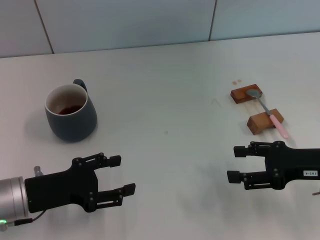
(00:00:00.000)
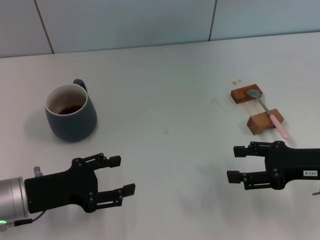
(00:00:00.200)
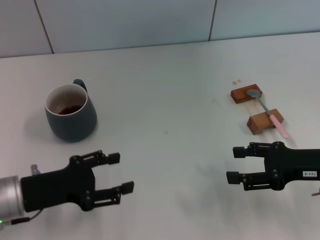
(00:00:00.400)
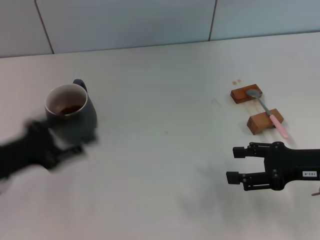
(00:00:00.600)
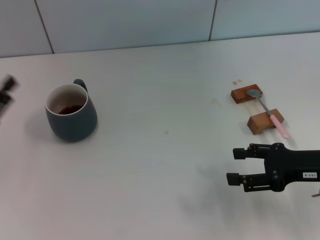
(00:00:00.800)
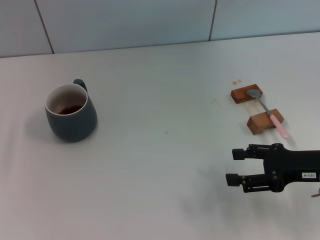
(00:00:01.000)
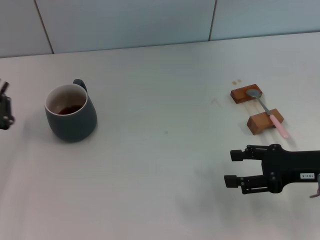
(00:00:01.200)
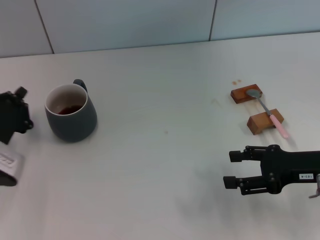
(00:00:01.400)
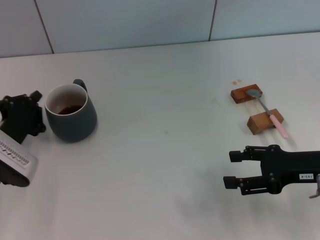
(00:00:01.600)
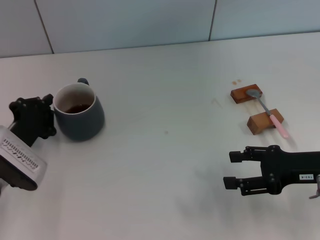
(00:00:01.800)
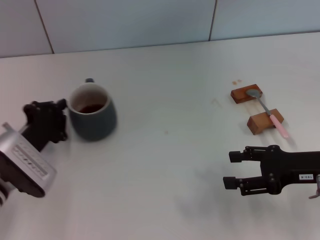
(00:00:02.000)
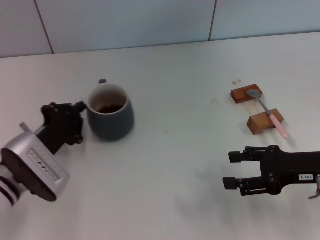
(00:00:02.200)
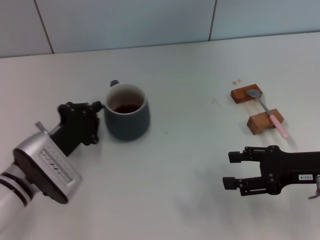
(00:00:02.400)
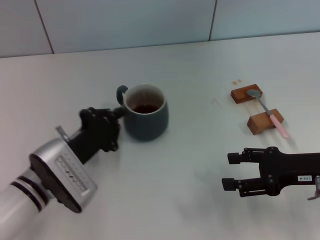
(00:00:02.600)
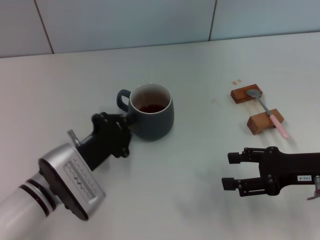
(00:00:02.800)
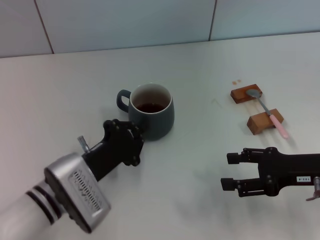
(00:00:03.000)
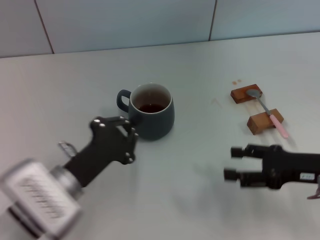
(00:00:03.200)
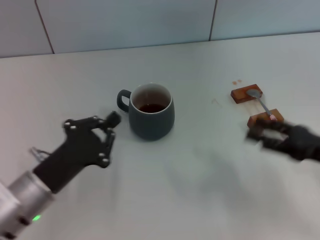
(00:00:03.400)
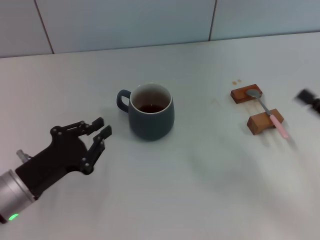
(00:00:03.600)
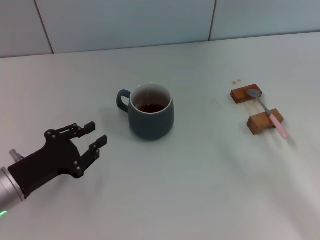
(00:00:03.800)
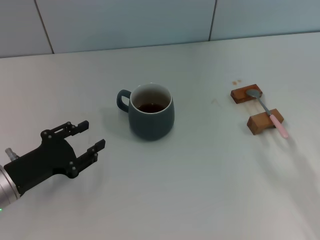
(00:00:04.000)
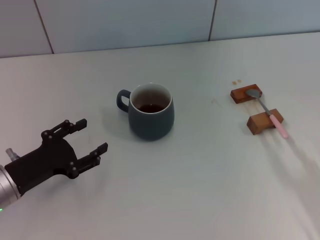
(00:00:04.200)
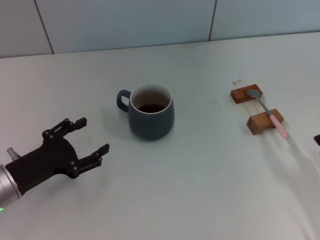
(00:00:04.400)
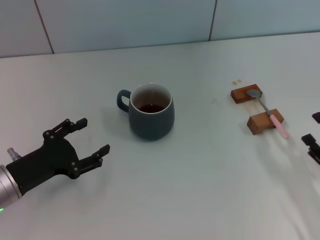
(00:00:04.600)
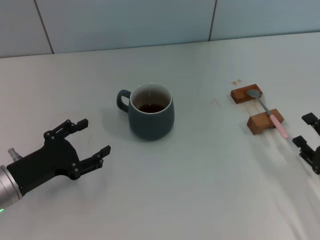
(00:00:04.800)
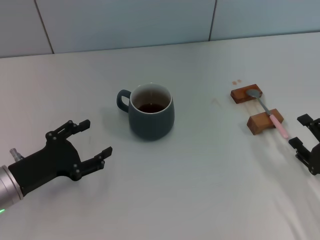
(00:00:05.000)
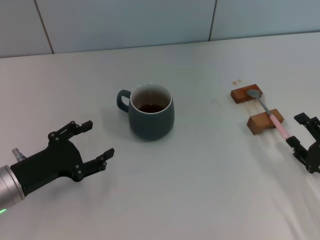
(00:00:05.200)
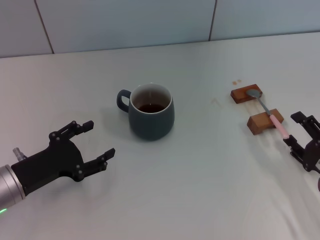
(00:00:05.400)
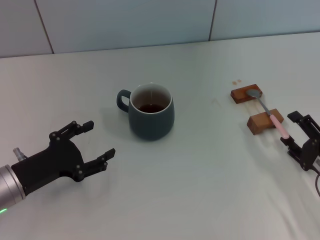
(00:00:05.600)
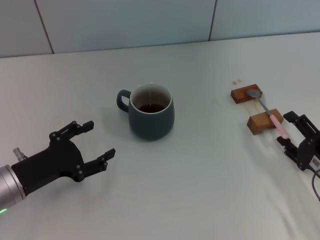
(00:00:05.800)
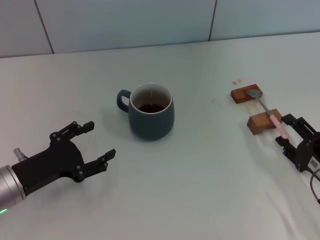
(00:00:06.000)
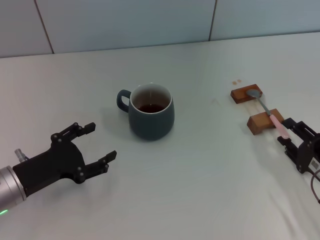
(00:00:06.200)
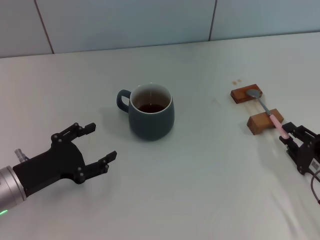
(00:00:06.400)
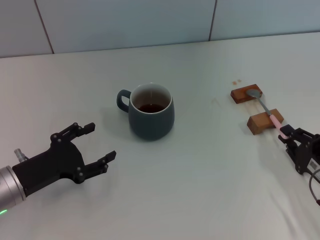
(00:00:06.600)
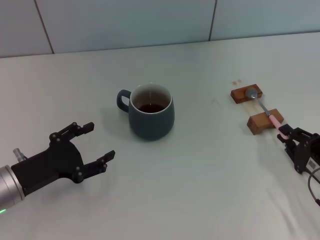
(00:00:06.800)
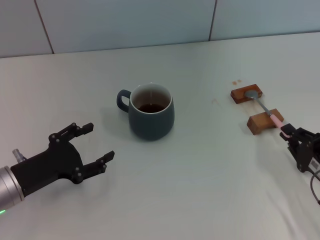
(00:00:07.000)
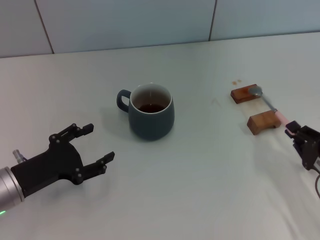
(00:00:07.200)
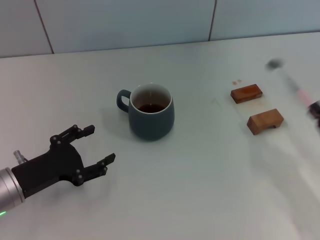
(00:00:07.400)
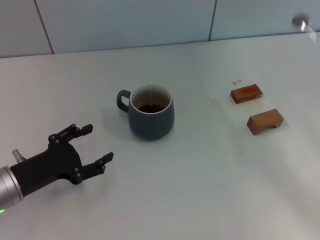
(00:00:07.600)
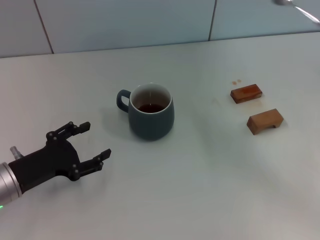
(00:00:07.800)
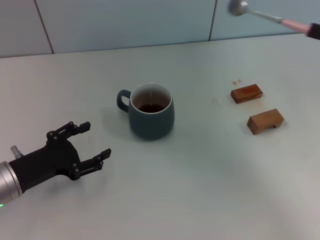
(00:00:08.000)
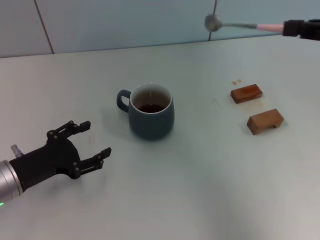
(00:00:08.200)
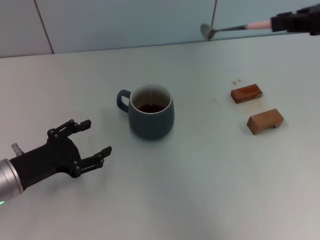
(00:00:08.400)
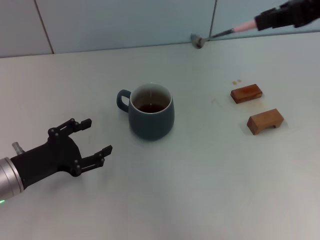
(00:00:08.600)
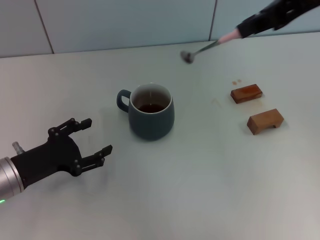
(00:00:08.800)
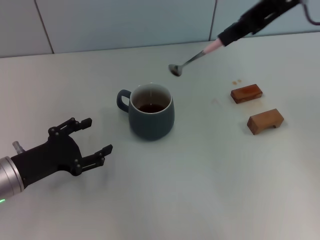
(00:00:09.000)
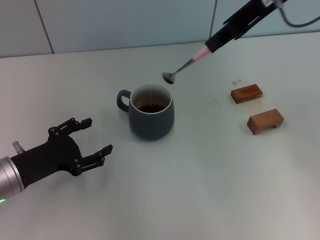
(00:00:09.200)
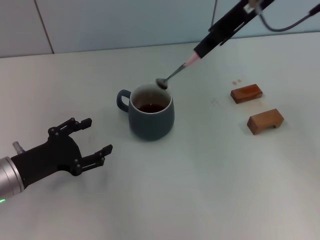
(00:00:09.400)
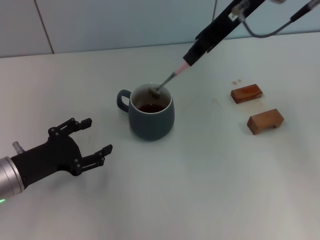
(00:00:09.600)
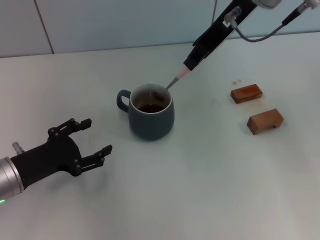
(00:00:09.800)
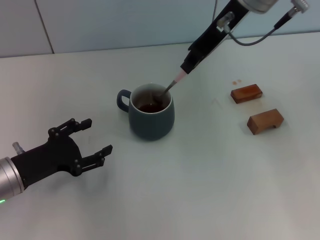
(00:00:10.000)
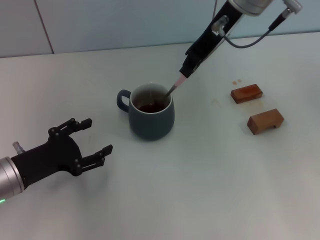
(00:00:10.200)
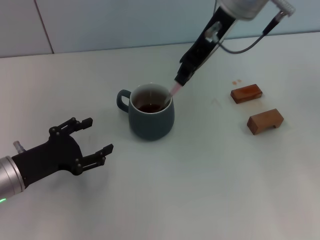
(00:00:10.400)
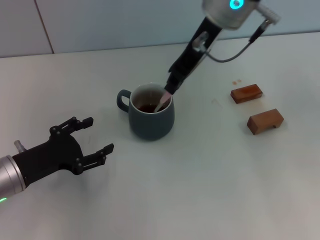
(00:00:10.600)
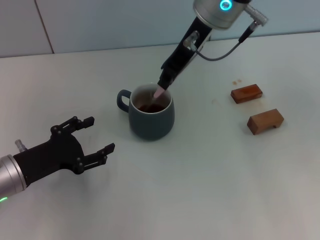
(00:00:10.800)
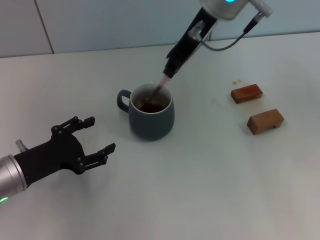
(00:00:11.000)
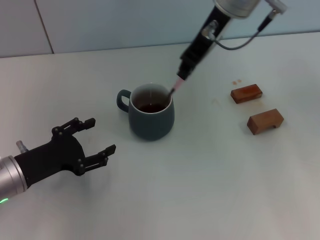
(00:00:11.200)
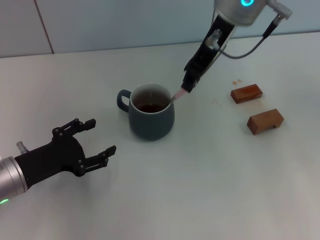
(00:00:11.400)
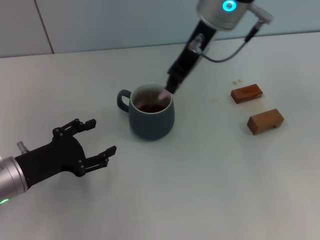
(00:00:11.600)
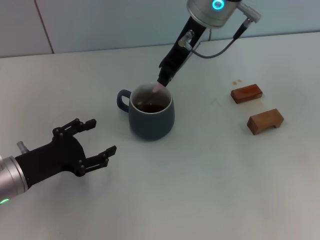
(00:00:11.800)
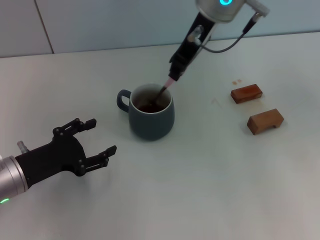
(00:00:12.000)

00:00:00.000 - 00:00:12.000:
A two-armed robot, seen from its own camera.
Task of the whole recording: Move the grey cup to the center, lift the pink spoon, stir it three times in the cup, and put the spoon into the cup.
Step, 00:00:00.000 - 00:00:03.200: Move the cup with coffee to the center of view with the left gripper.
Step, 00:00:03.600 - 00:00:07.200: Pick up the spoon with the right gripper.
00:00:00.000 - 00:00:01.600: The left gripper reaches roughly 10 cm to the left, then returns, and closes up.
00:00:01.600 - 00:00:03.000: The left gripper travels to the right by about 10 cm.
00:00:03.000 - 00:00:04.400: The left gripper moves to the left, approximately 10 cm, and opens up. Meanwhile the right gripper is displaced backward and downward by roughly 10 cm.
00:00:04.400 - 00:00:06.000: The grippers stay close to where they were, moving slightly.
00:00:06.000 - 00:00:07.600: The right gripper moves upward and to the right, roughly 10 cm, and closes its fingers.
00:00:07.600 - 00:00:09.000: The right gripper heads upward, to the left and forward, covering about 35 cm.
00:00:09.000 - 00:00:10.400: The right gripper moves to the left, downward and forward, about 10 cm.
00:00:10.400 - 00:00:12.000: The grippers stay close to where they were, moving slightly.

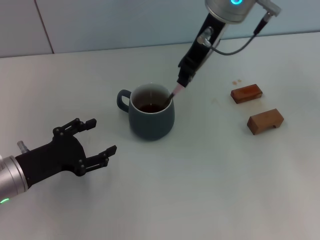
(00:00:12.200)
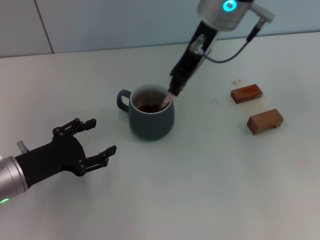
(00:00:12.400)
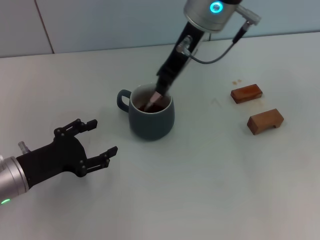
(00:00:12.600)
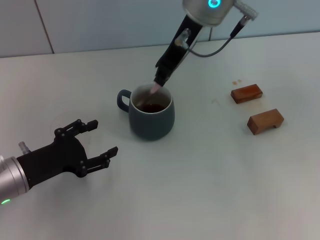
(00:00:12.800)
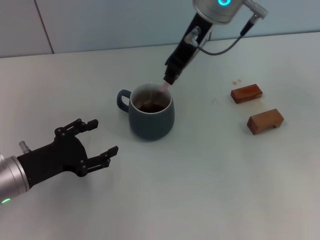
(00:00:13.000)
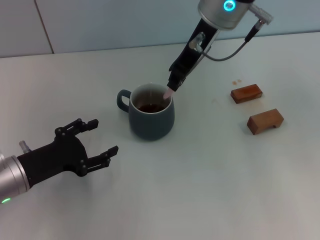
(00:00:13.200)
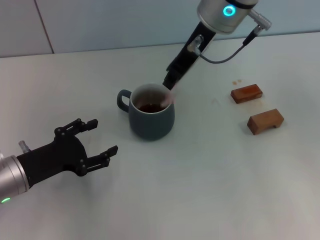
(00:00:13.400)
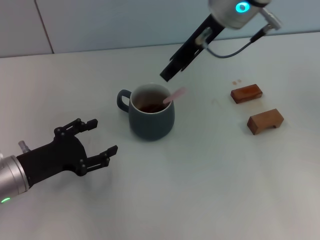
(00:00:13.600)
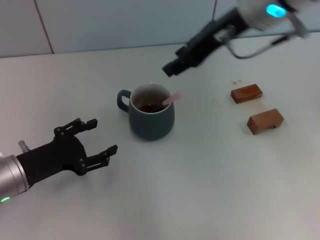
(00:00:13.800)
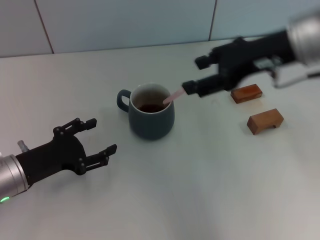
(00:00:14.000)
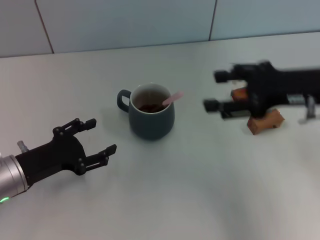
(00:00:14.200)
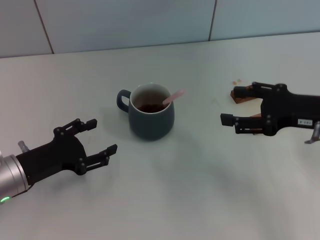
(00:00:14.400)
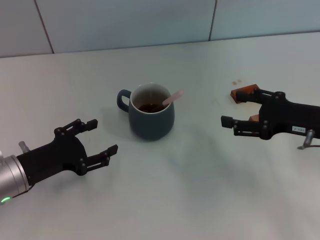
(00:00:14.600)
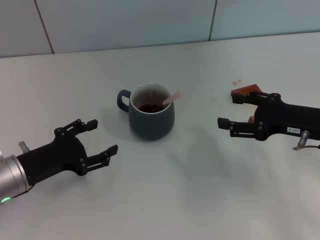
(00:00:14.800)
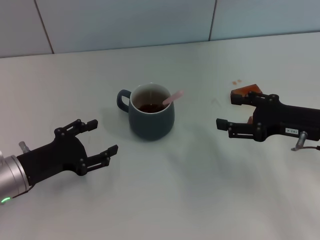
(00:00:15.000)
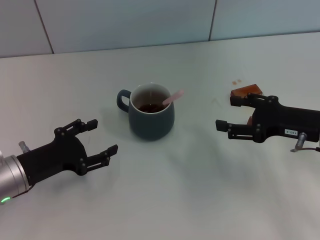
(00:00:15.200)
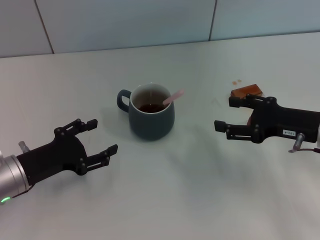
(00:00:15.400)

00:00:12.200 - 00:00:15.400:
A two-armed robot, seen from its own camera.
Task of the whole recording: Move the grey cup to the center, lift the pink spoon, stir it three times in the cup, and put the spoon into the cup.
00:00:12.200 - 00:00:13.800: The right gripper shifts by about 5 cm.
00:00:13.800 - 00:00:15.400: The right gripper shifts about 25 cm downward, to the right and backward, and opens up.
